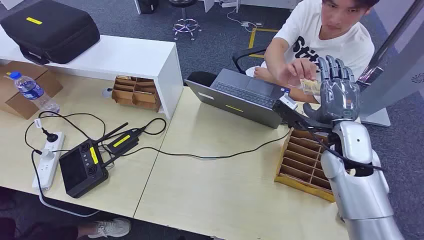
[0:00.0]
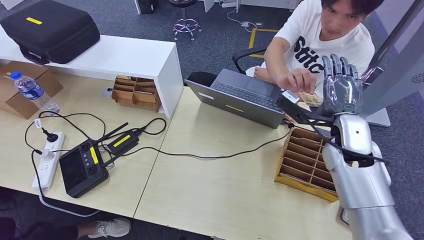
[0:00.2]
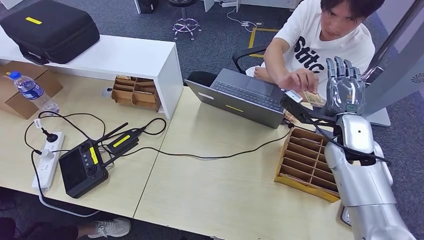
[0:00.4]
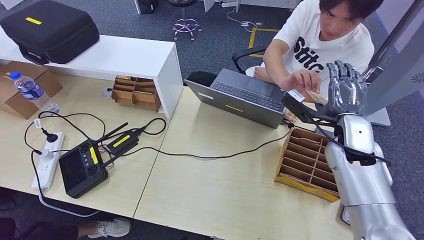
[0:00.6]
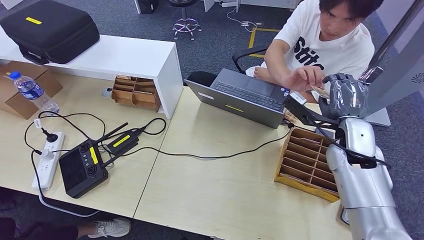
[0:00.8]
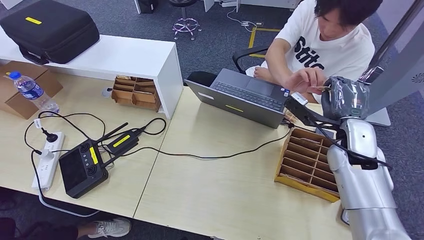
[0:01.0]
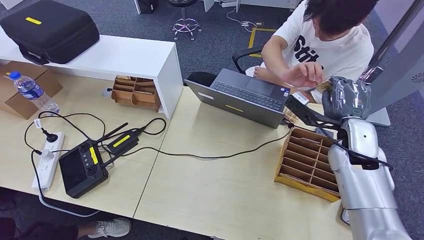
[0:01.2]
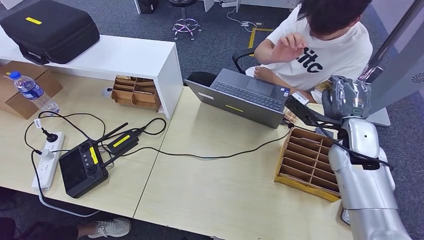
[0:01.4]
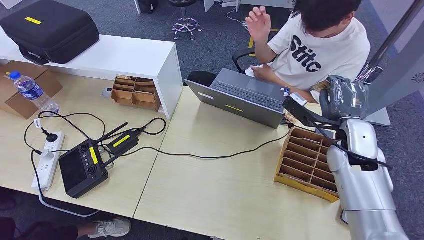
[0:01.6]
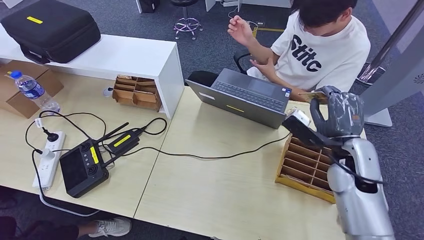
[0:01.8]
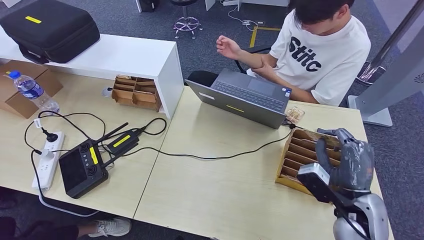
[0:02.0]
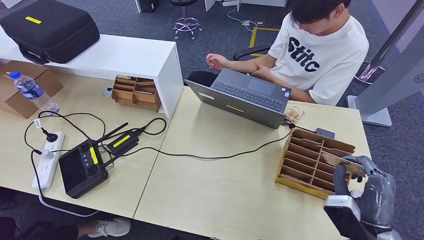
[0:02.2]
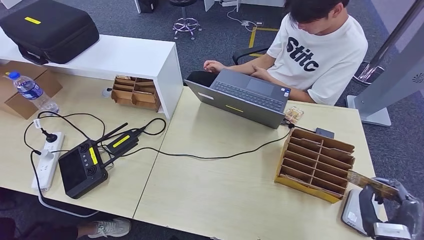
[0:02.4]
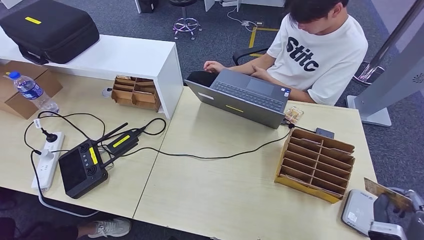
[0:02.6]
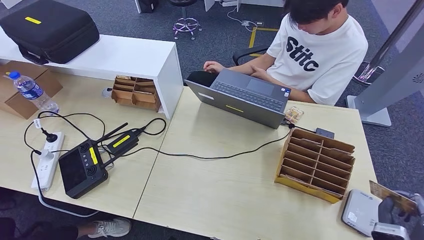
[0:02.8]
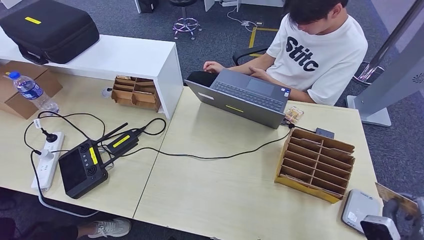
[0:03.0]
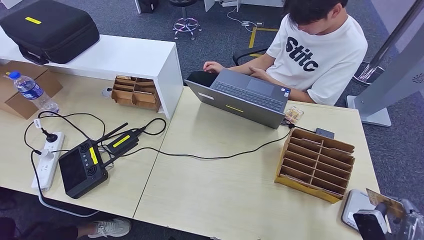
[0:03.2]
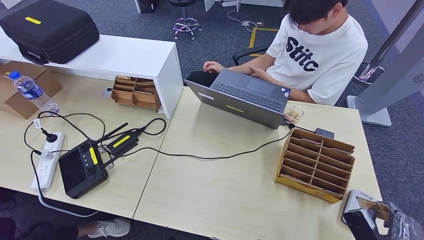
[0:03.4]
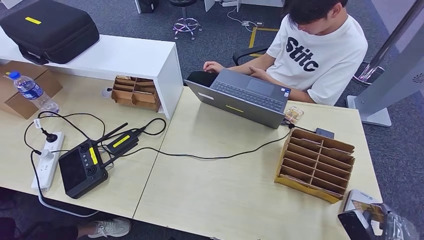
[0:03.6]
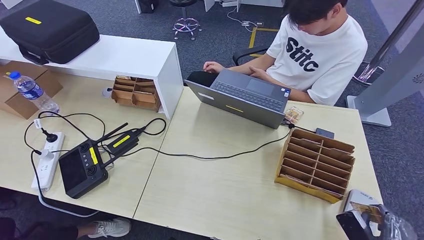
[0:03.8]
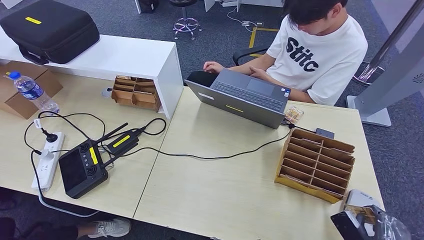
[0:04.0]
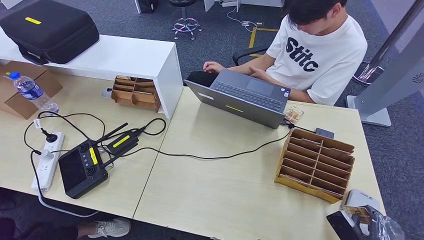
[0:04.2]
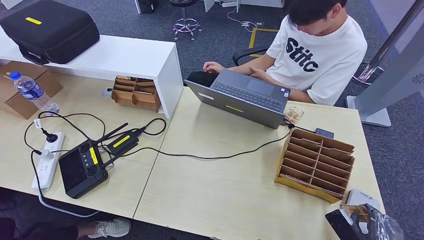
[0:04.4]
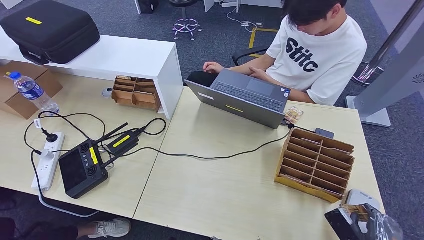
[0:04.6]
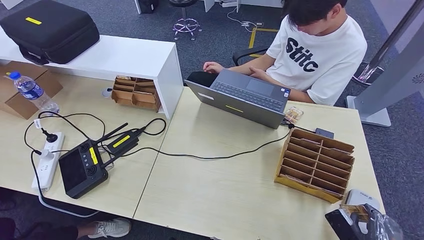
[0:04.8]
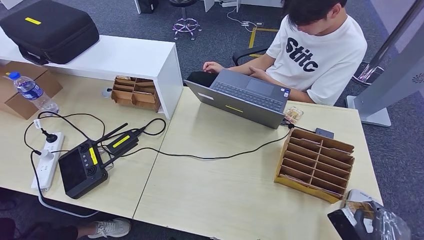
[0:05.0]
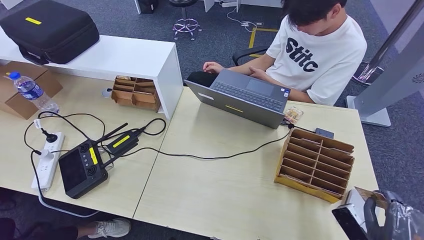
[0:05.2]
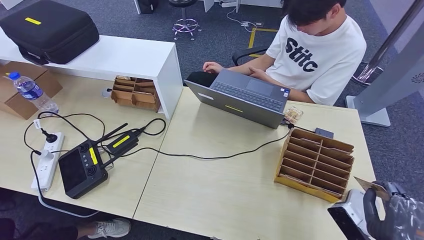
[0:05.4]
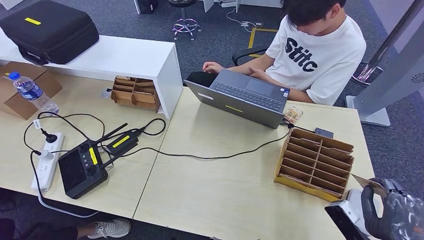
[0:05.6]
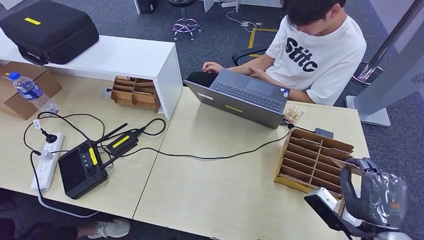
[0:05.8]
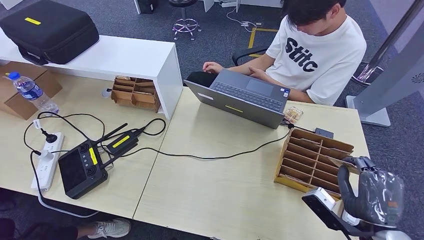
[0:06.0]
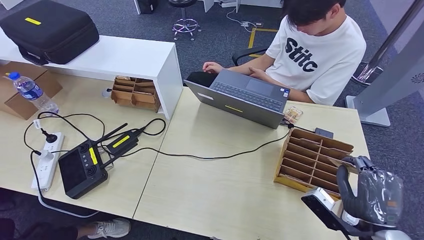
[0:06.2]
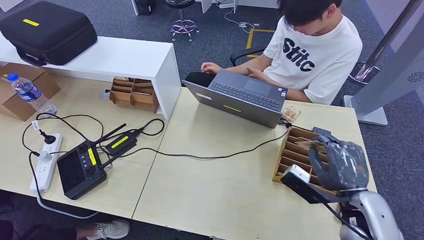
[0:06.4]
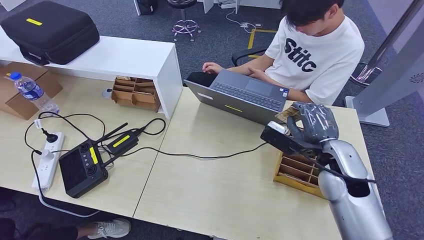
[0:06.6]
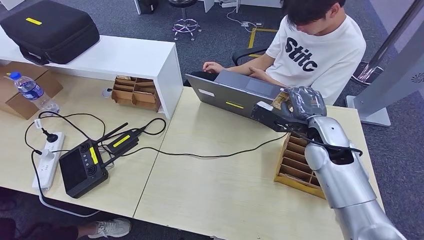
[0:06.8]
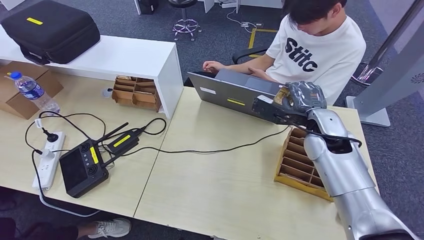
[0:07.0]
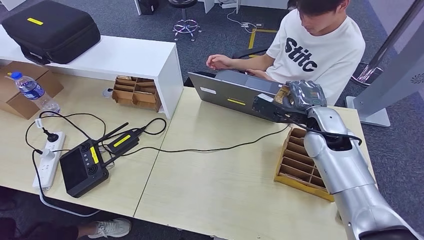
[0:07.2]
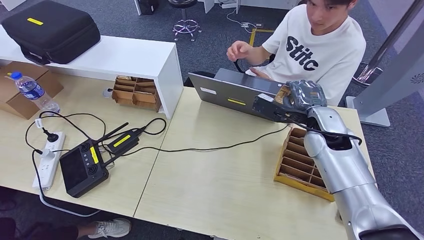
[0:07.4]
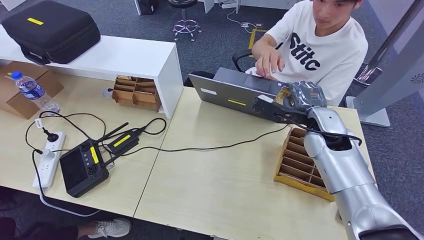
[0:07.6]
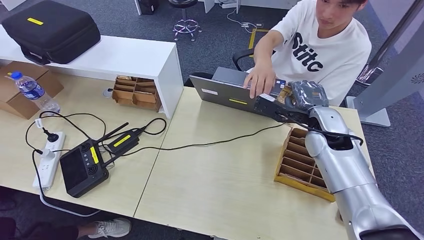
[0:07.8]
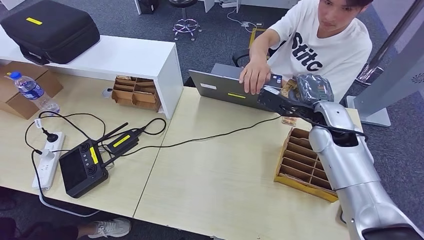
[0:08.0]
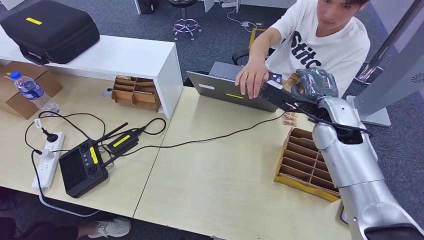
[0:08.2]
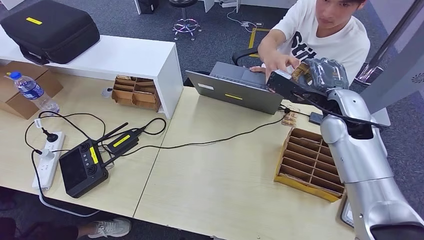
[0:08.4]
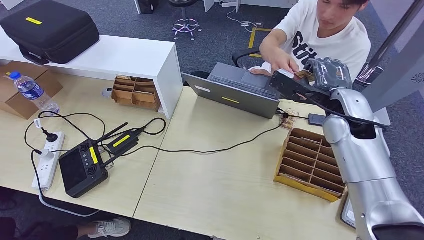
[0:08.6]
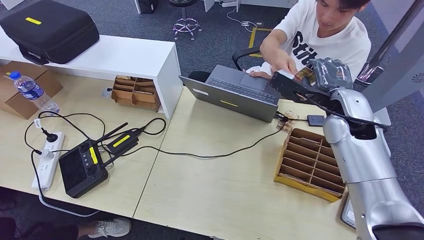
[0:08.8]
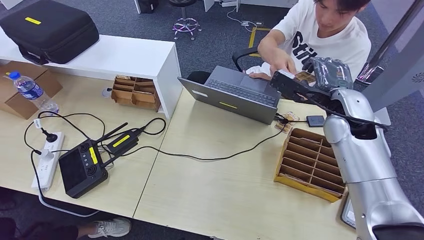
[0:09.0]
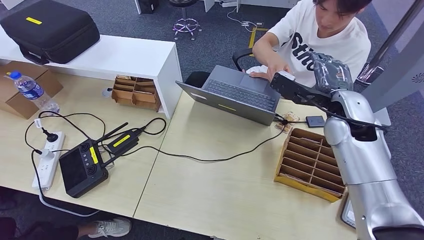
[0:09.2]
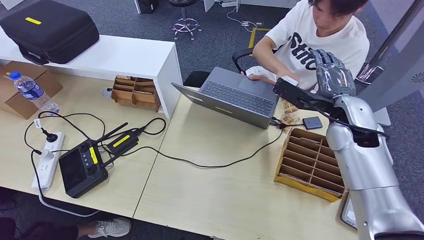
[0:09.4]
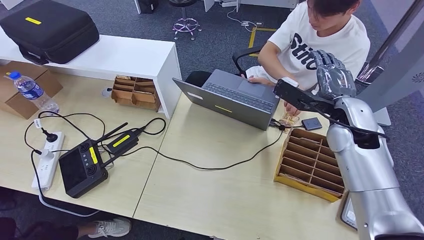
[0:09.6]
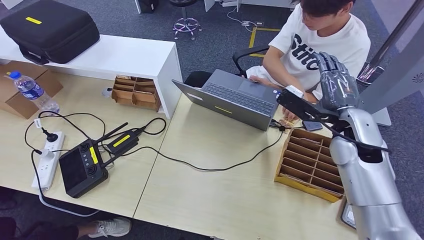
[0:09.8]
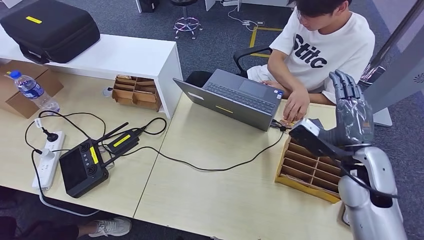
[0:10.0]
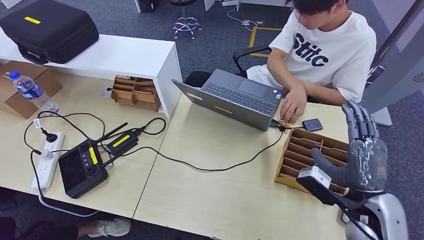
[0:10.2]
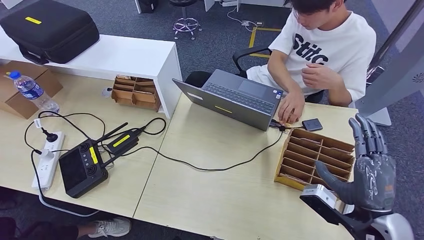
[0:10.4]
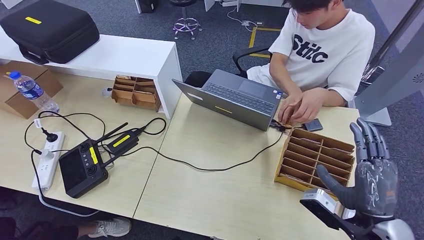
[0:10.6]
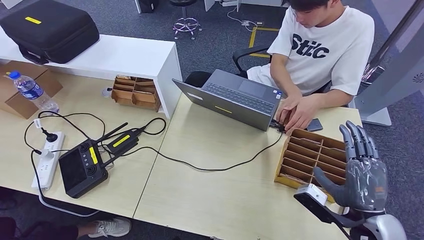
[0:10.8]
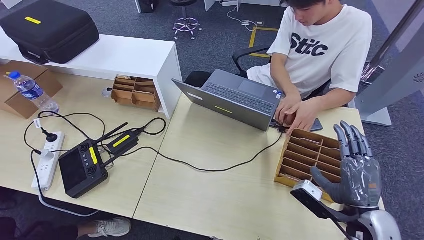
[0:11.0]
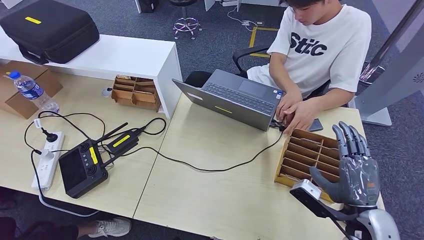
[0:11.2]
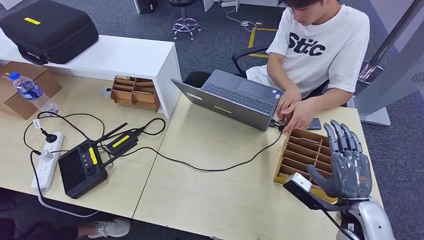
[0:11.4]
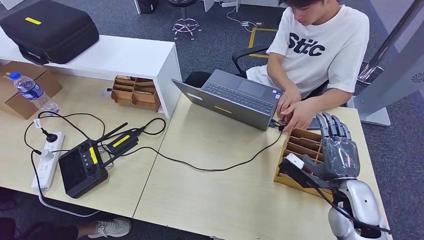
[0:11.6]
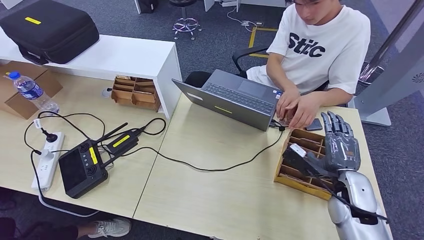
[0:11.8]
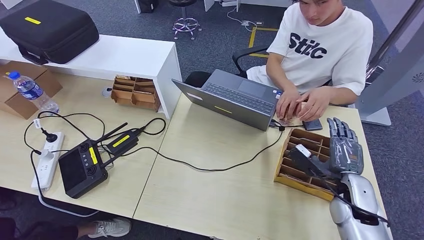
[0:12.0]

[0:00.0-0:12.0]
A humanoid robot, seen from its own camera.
Step, 0:00.0 to 0:02.0: Take the ID card from the person's hand.
Step, 0:02.2 to 0:05.8: Place the ID card on the card reader.
Step, 0:06.0 to 0:09.0: Hand the ID card to the person.
0:01.6 to 0:03.0: The right hand heads backward, downward and to the right, covering approximately 30 cm.
0:03.0 to 0:04.4: The right hand is displaced downward by some 5 cm.
0:04.4 to 0:06.0: The right hand is displaced upward and to the left by roughly 15 cm.
0:10.4 to 0:12.0: The right hand shifts some 10 cm forward and downward.

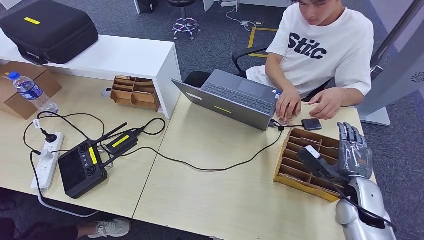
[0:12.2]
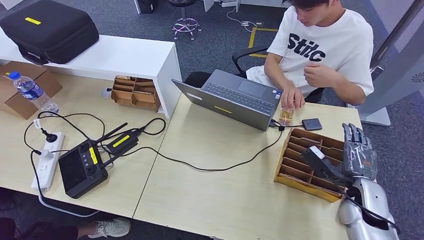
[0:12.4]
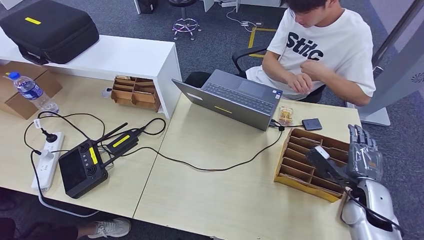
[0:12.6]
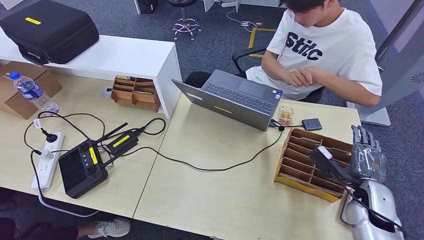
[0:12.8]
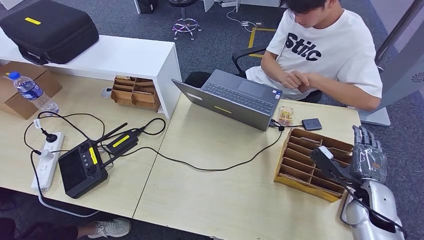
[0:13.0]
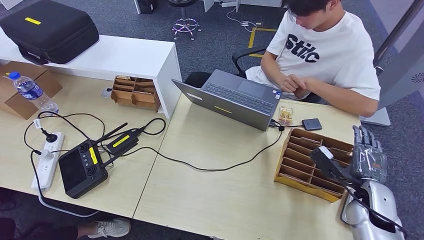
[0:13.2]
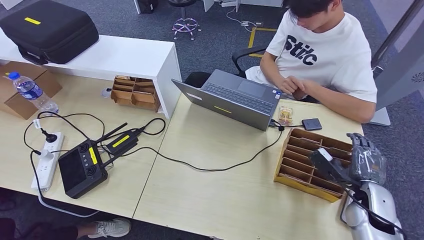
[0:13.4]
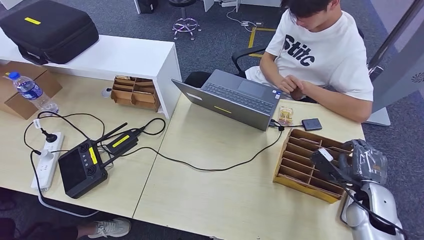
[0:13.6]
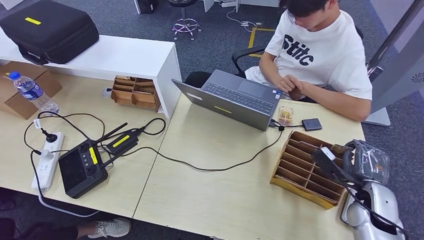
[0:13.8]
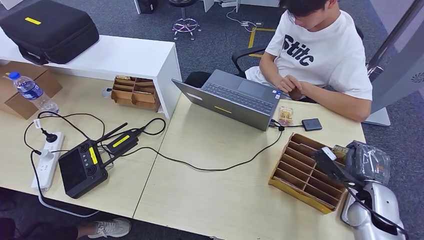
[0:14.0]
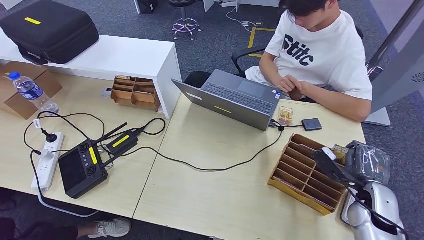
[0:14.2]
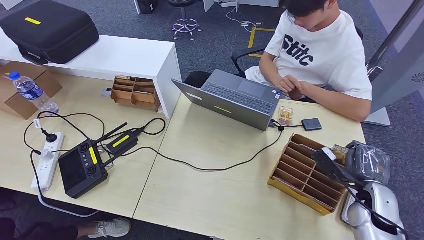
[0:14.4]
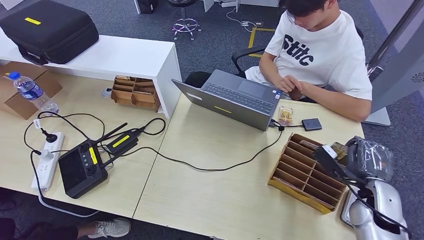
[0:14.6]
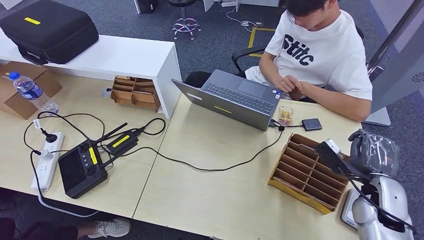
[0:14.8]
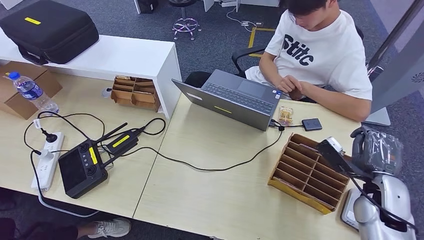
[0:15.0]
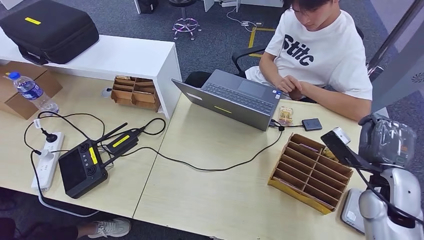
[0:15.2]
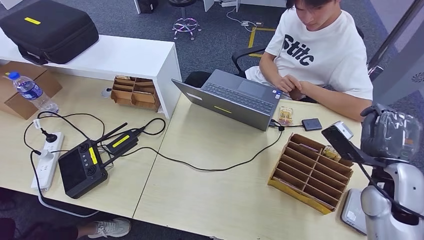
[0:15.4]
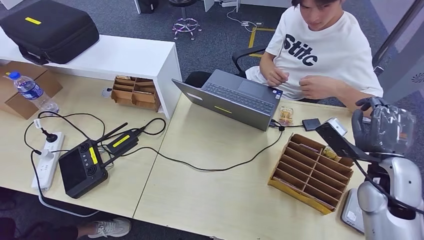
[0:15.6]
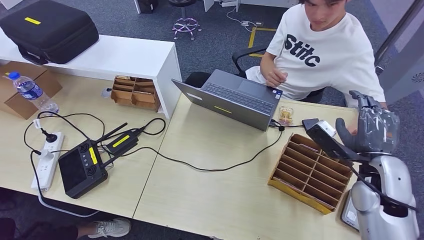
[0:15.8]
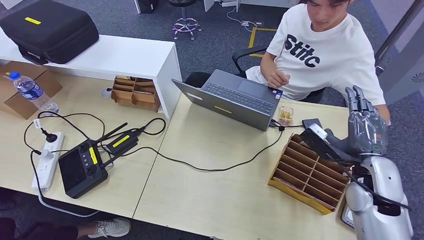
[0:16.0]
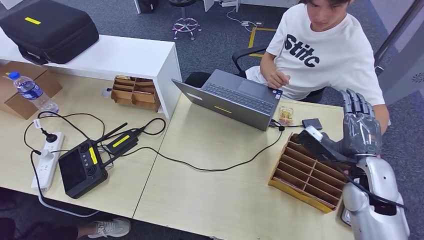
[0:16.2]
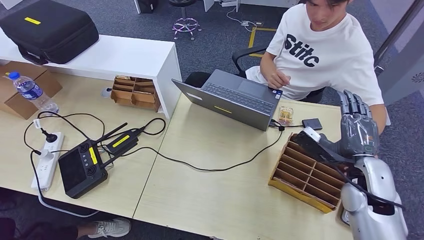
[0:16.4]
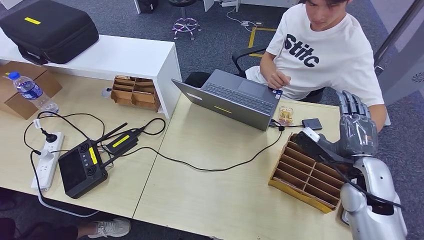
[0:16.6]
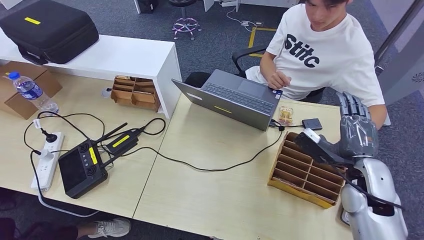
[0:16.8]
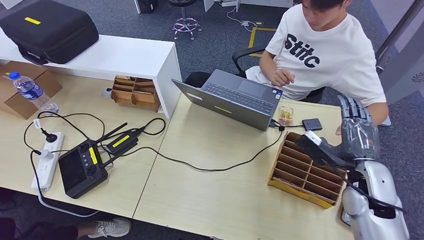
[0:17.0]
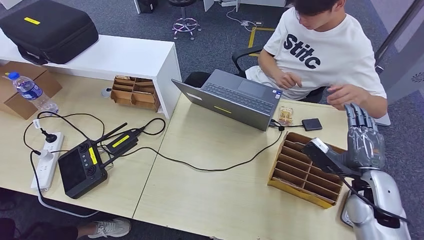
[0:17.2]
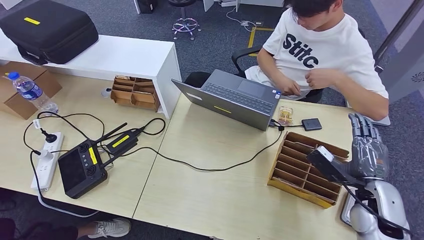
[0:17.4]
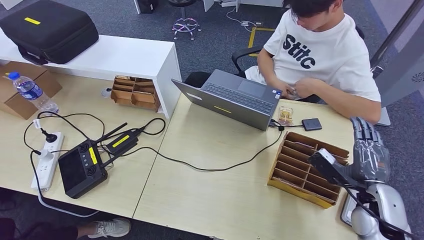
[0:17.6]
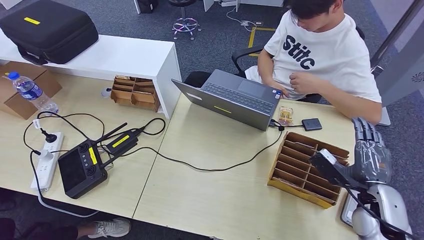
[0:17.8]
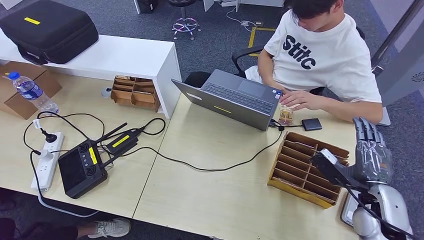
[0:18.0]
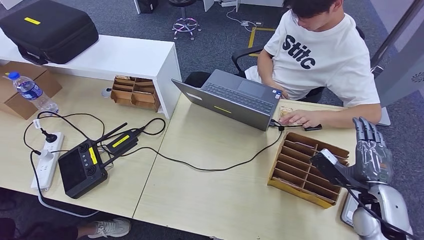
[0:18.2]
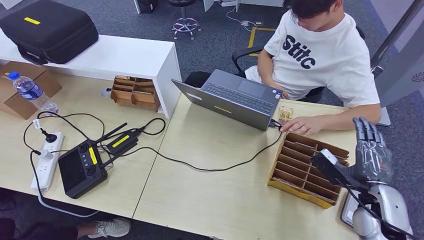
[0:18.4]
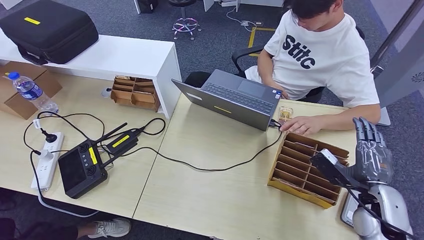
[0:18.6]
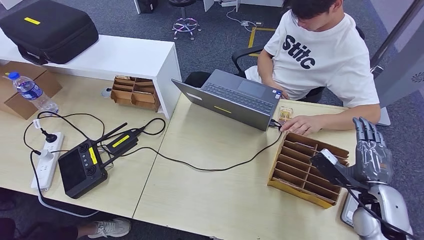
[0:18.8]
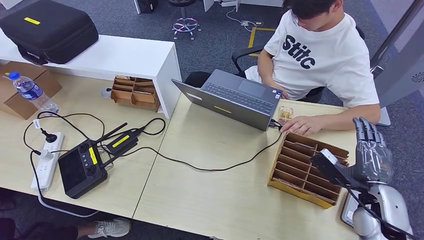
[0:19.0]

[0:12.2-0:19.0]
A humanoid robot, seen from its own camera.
0:12.2 to 0:15.0: The hands make only small movements.
0:15.0 to 0:16.2: The right hand changes place by some 5 cm.
0:16.2 to 0:17.6: The right hand travels downward by approximately 5 cm.
0:17.6 to 0:19.0: The two hands keep their place.
